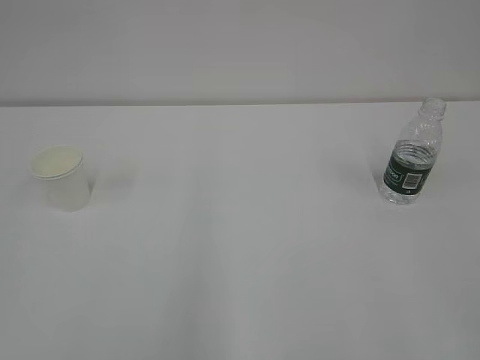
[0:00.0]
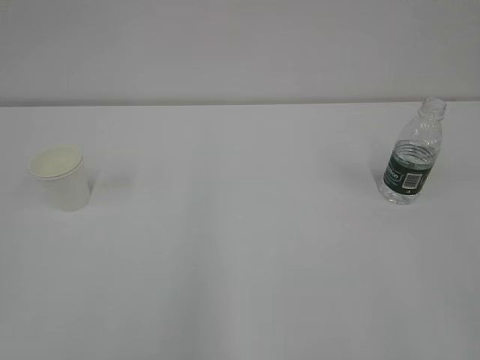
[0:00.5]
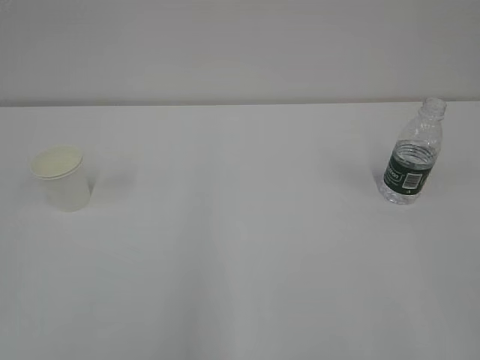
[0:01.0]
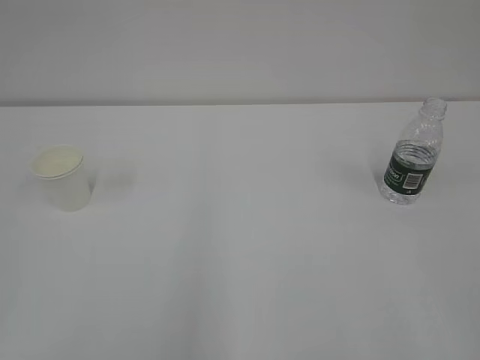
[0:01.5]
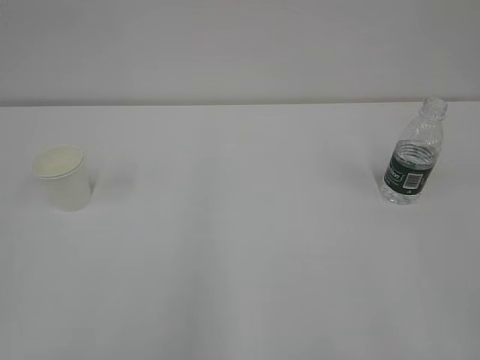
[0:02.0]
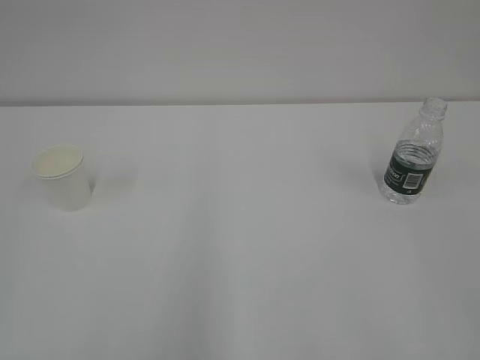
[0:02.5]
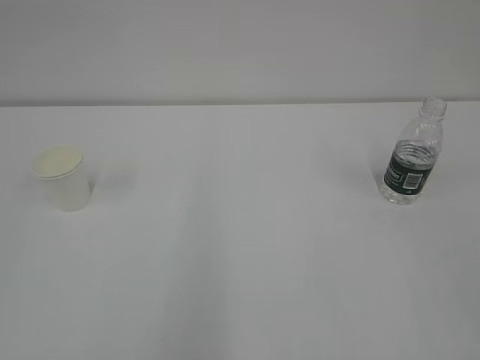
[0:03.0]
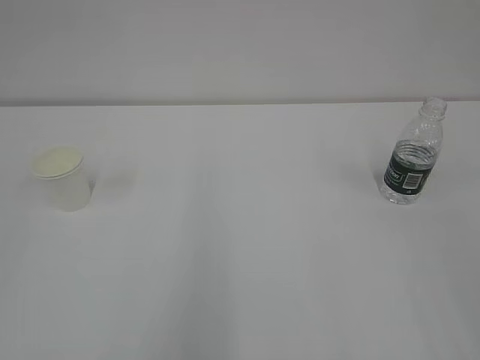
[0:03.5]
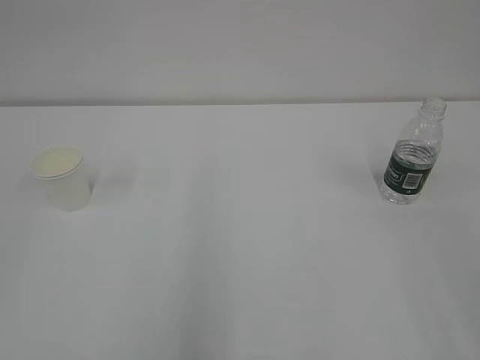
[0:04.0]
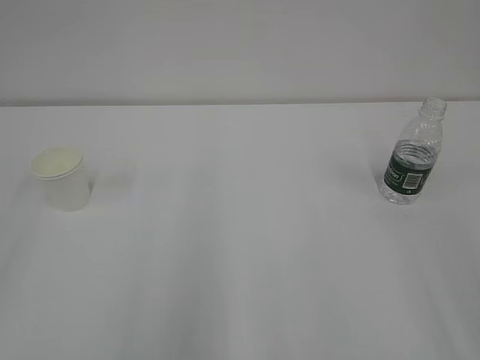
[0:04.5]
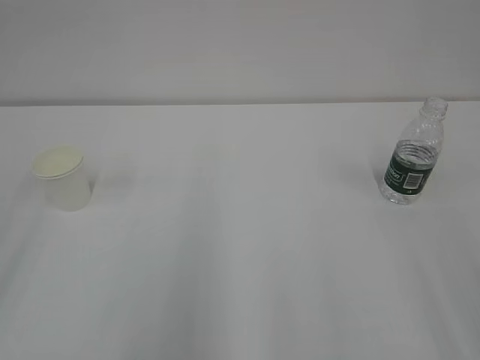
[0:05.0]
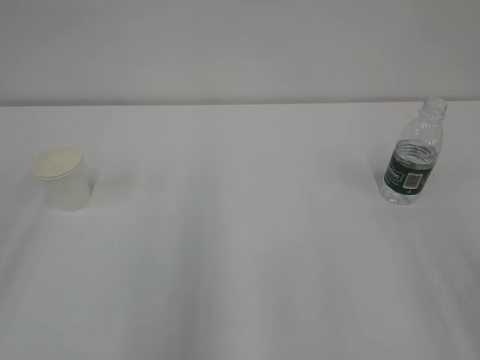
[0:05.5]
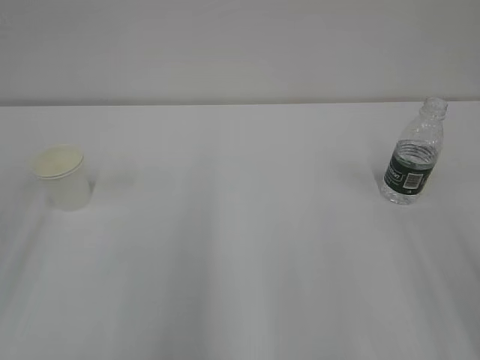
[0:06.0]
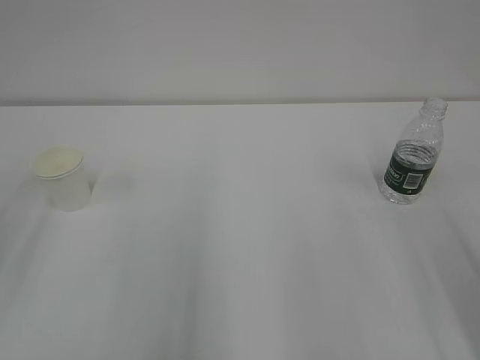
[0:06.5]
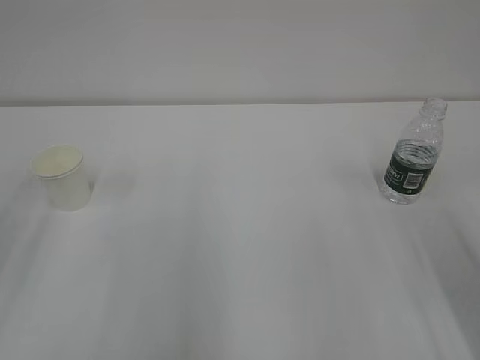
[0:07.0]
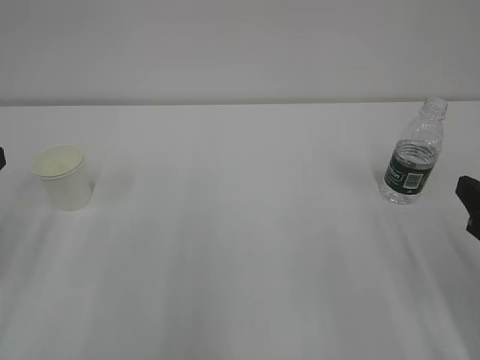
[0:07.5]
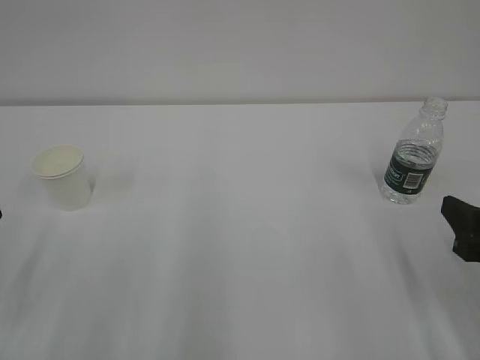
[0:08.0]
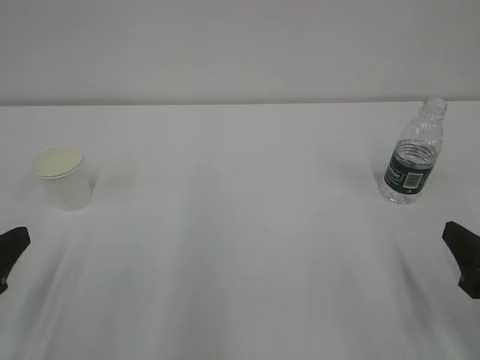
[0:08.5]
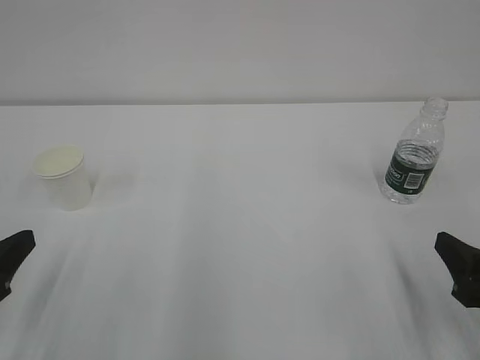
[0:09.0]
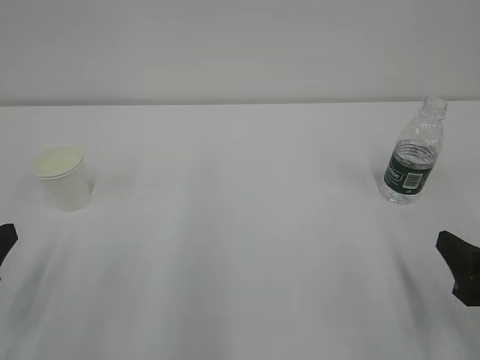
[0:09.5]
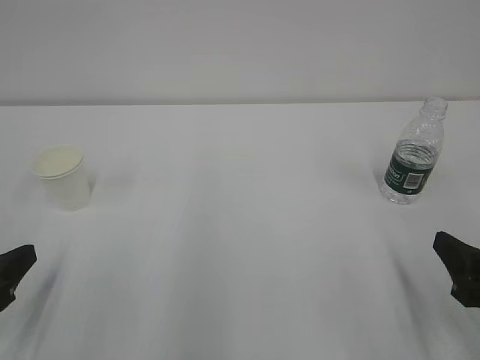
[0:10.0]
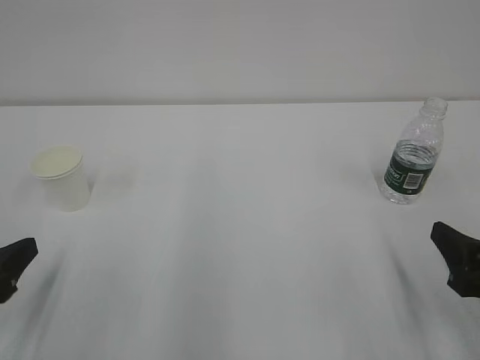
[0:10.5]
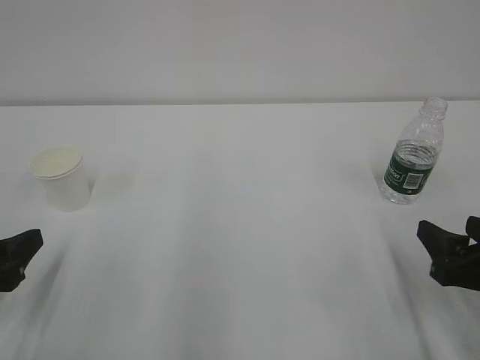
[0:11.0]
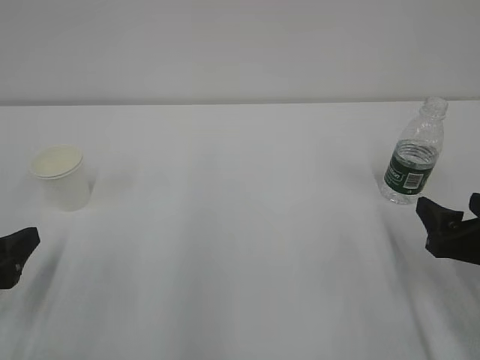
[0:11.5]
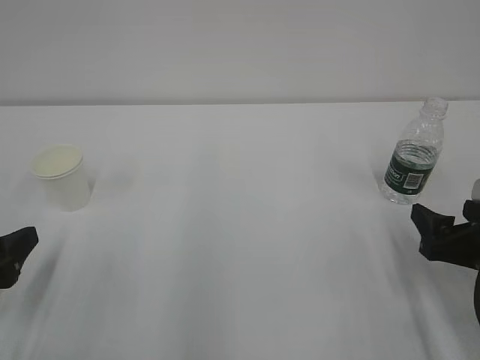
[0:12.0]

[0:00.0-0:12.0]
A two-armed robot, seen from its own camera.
0:06.0 to 0:08.0: The right gripper travels downward and forward by roughly 15 cm.
0:08.0 to 0:10.0: There are only small adjustments of the grippers.
0:10.0 to 0:12.0: The left gripper opens its fingers. Meanwhile the right gripper is displaced forward by about 5 cm, and opens its fingers.

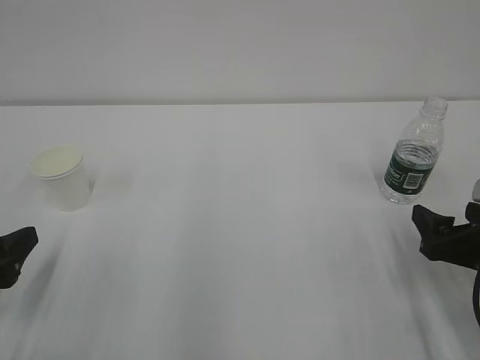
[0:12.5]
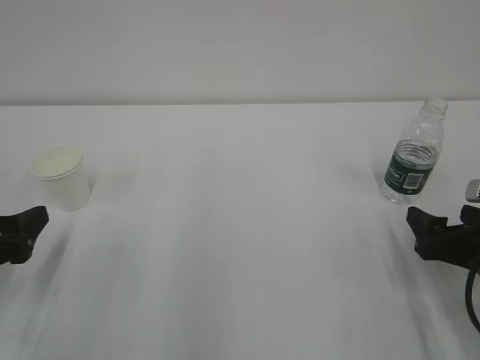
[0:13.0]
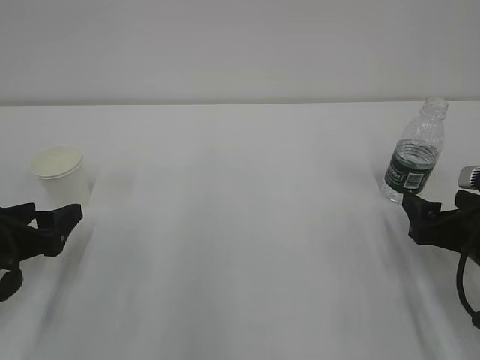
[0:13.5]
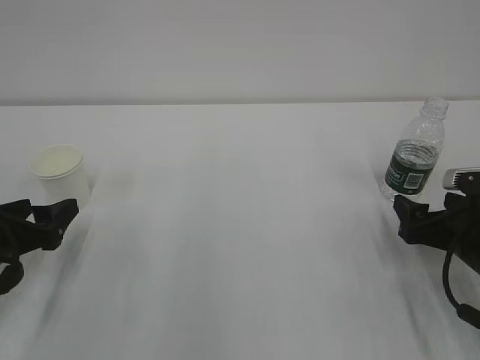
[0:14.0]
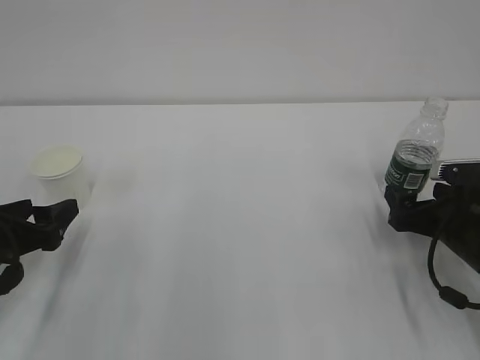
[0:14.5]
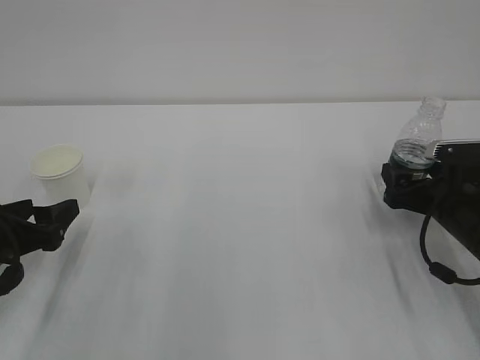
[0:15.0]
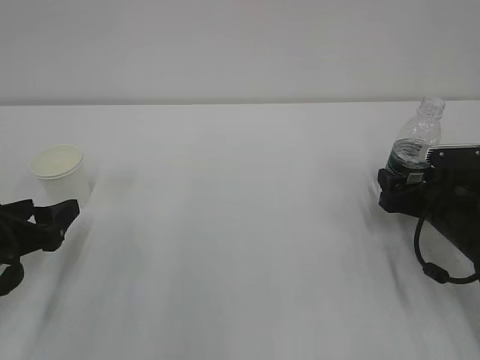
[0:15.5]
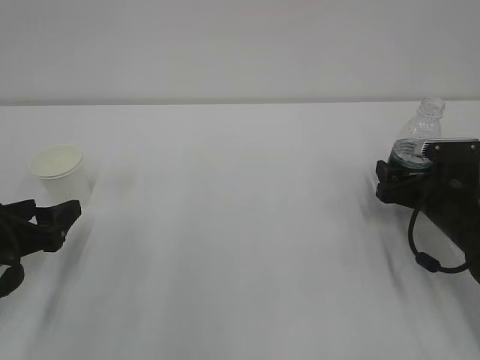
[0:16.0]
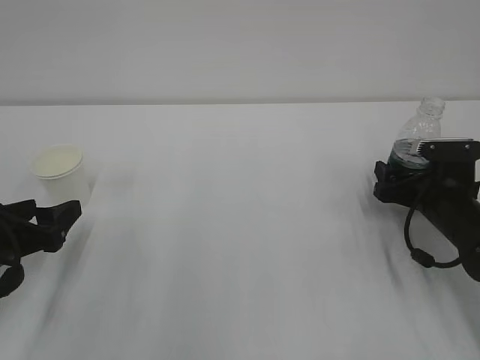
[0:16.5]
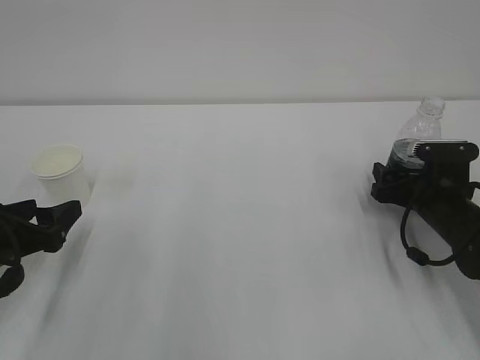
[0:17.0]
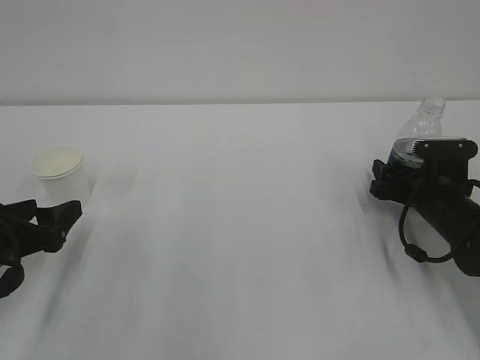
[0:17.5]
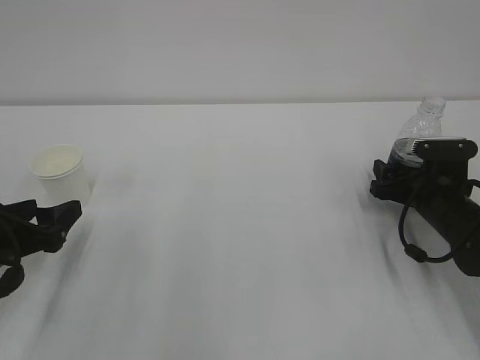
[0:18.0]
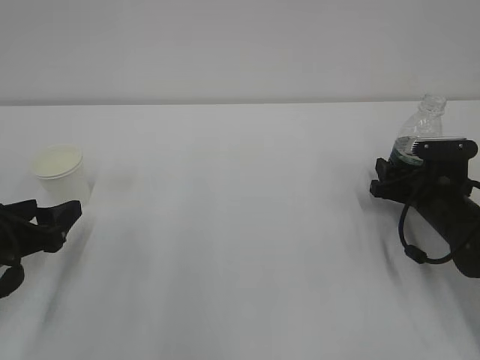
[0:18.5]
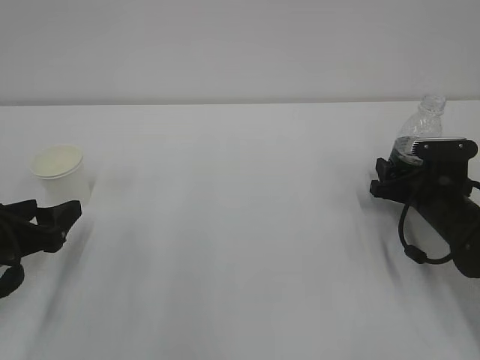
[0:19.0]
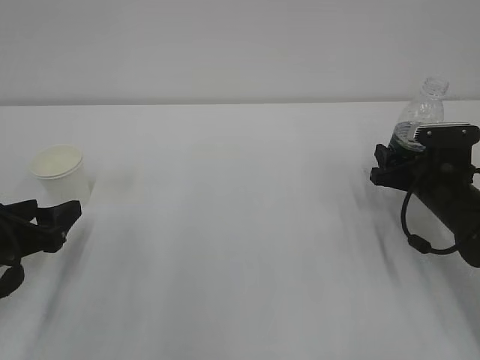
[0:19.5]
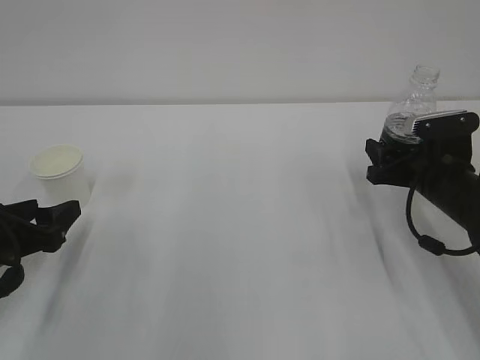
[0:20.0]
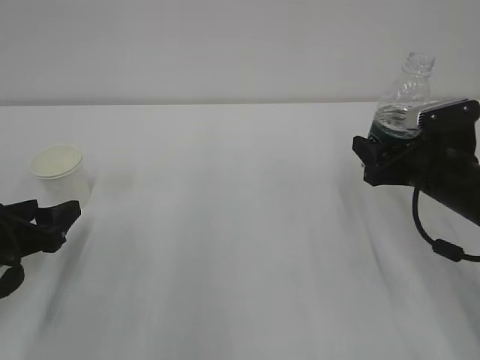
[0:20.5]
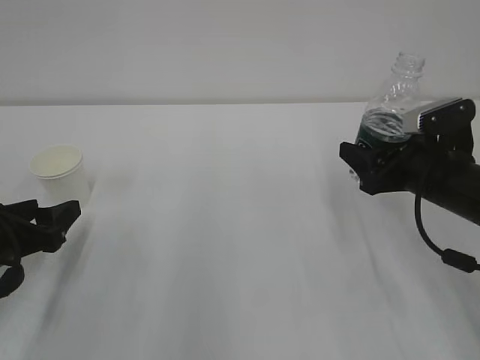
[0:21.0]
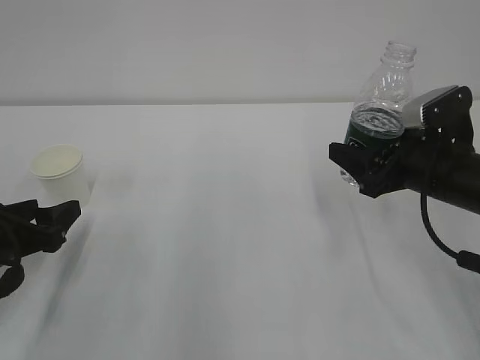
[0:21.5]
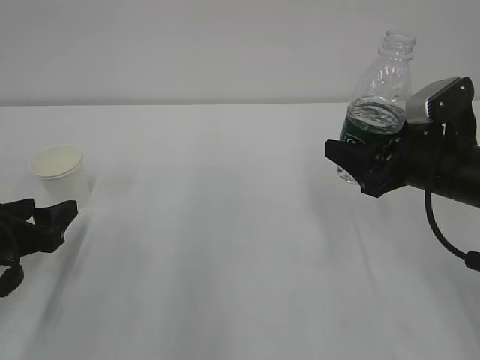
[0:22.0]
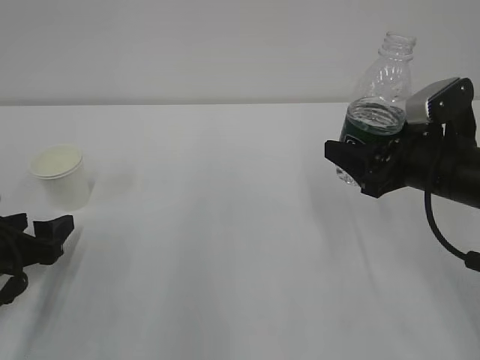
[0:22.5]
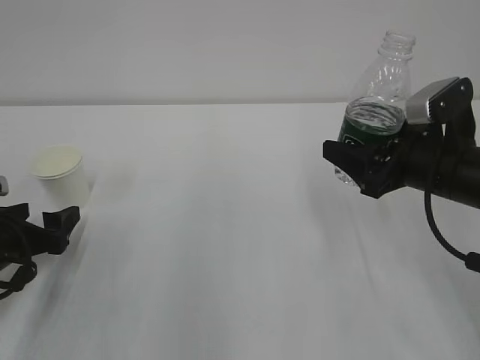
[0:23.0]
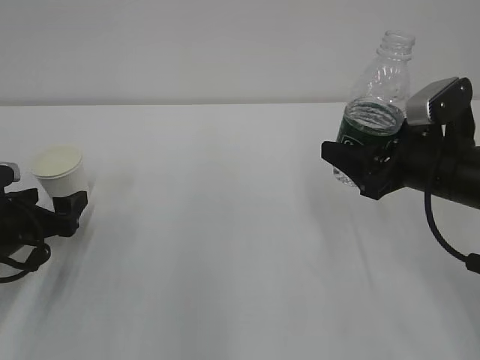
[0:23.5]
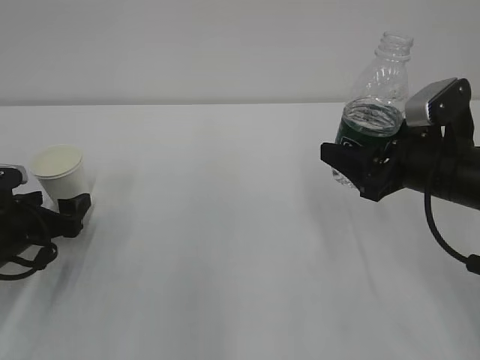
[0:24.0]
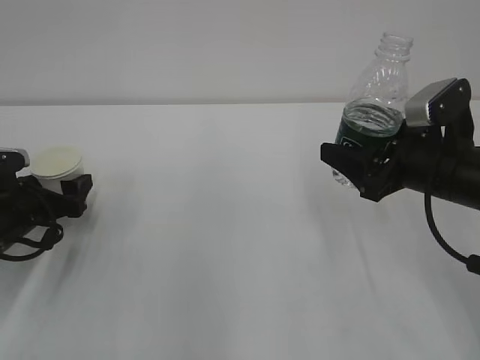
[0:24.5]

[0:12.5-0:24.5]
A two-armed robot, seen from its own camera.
0:12.5 to 0:14.5: The two grippers go about 5 cm forward.
0:14.5 to 0:16.5: The right gripper travels forward by some 5 cm.
0:16.5 to 0:18.5: The right gripper closes its fingers.
0:18.5 to 0:20.5: The right gripper is displaced upward by roughly 5 cm.
0:20.5 to 0:22.5: The right gripper shifts by approximately 5 cm.
0:22.5 to 0:24.5: The left gripper moves forward, about 5 cm.

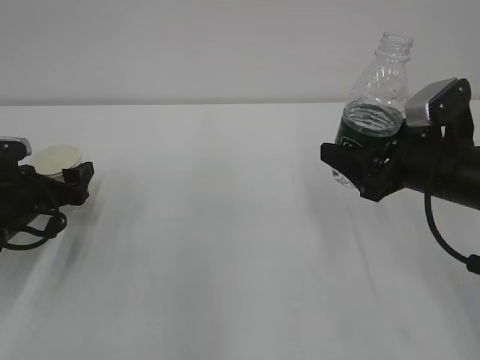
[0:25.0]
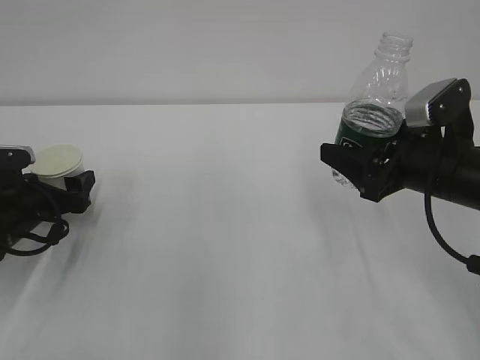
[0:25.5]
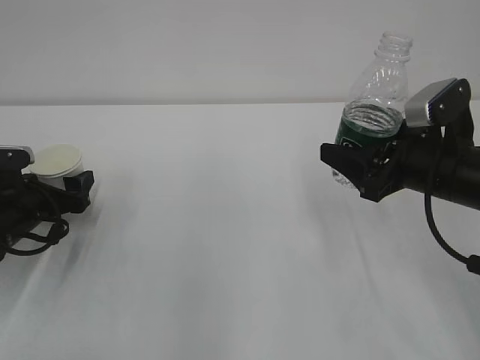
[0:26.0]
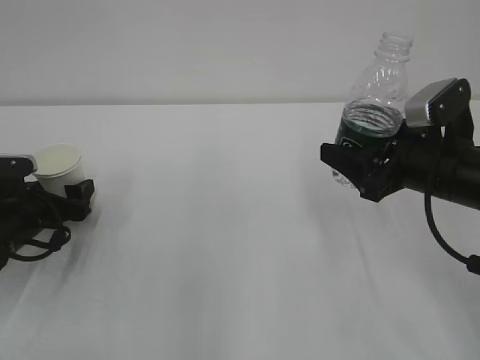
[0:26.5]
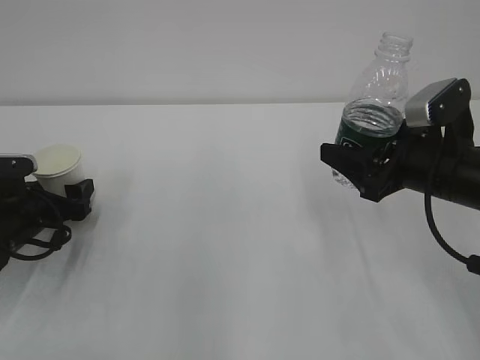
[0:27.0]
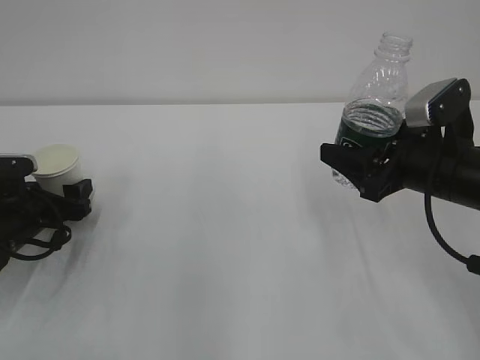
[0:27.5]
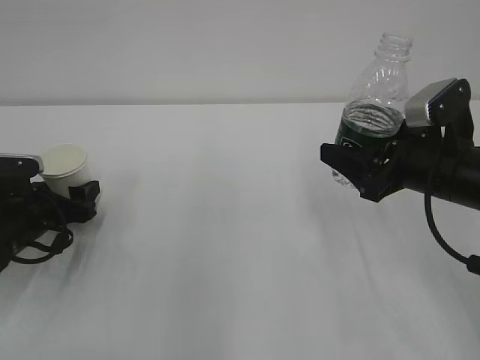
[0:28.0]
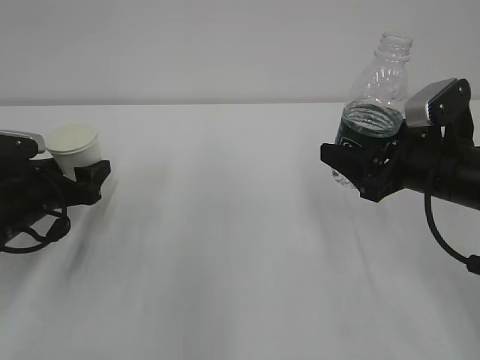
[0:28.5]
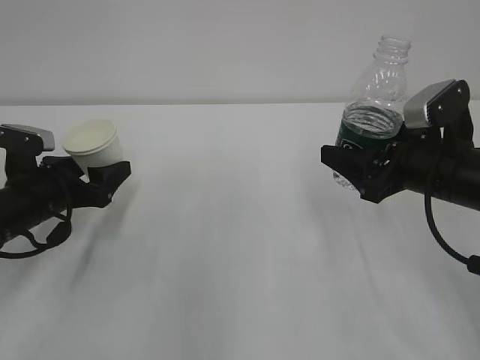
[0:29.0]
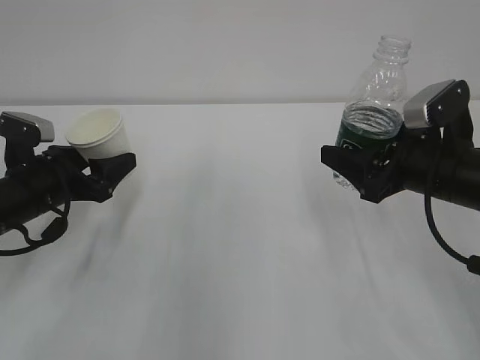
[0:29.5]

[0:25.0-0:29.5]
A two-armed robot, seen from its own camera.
0:25.0 to 0:27.0: The grippers move only a little.
0:27.0 to 0:29.5: The left gripper goes approximately 5 cm upward, and closes up.
